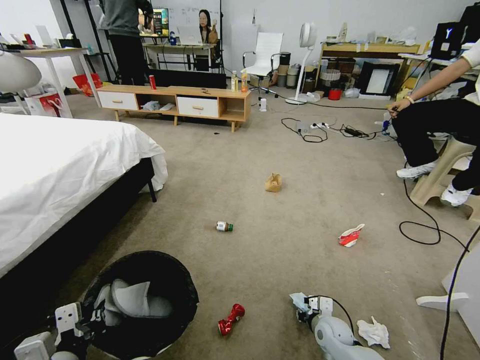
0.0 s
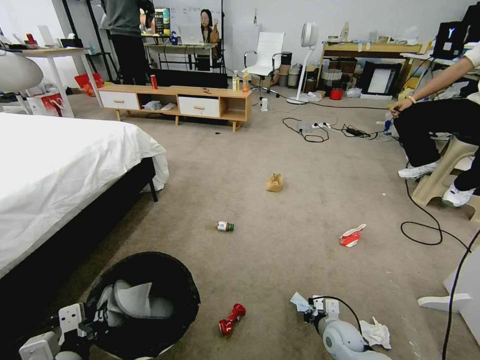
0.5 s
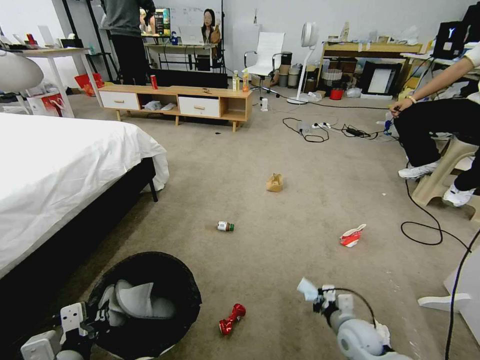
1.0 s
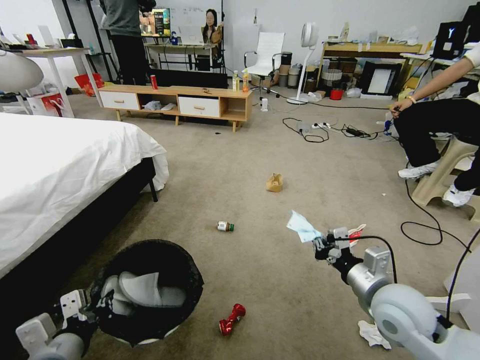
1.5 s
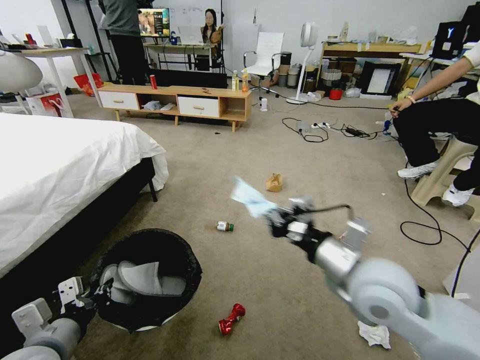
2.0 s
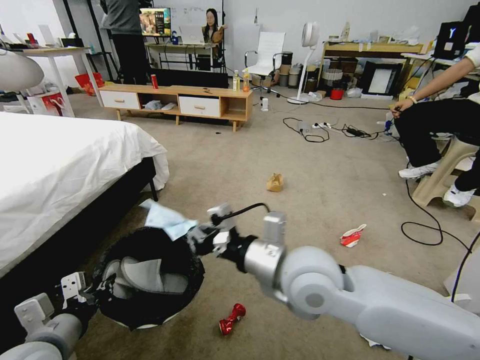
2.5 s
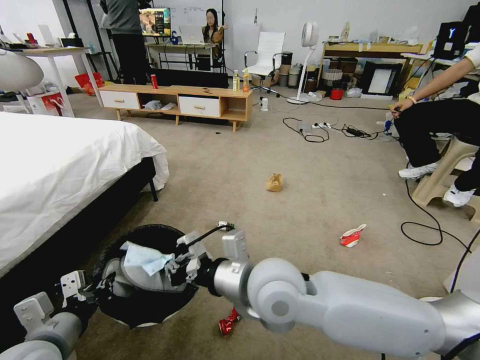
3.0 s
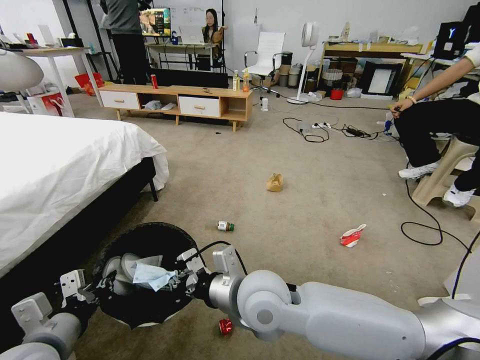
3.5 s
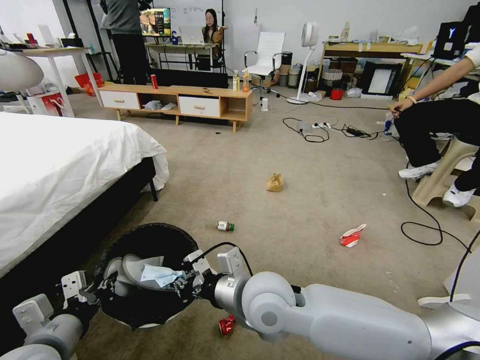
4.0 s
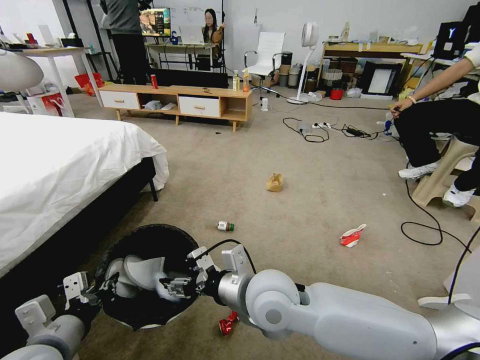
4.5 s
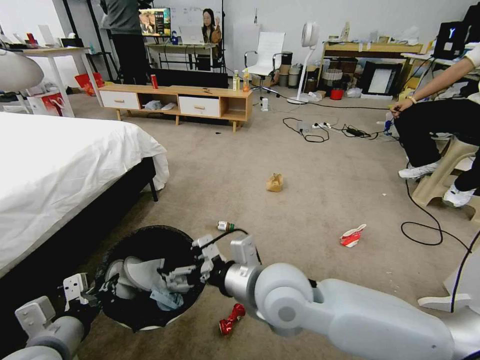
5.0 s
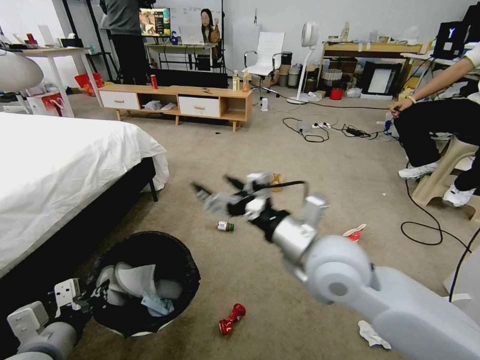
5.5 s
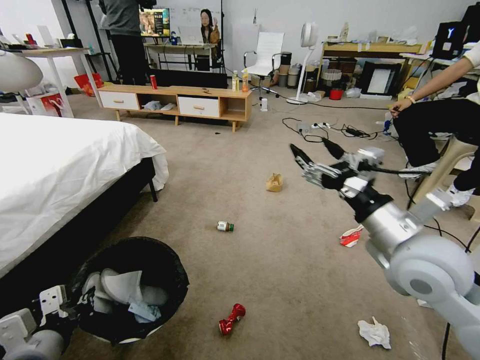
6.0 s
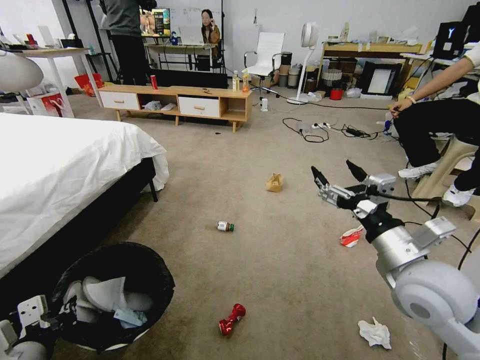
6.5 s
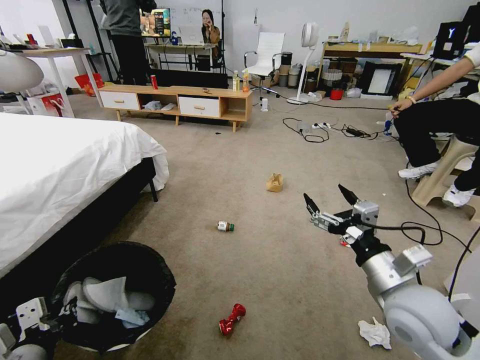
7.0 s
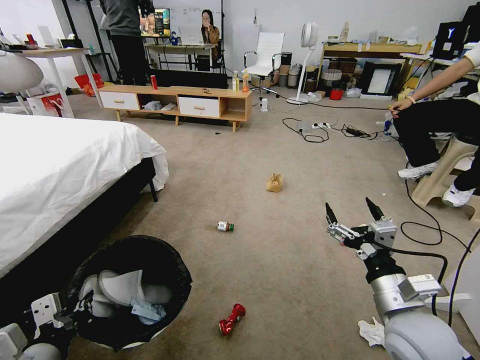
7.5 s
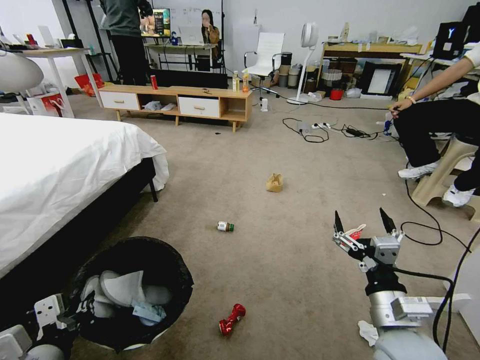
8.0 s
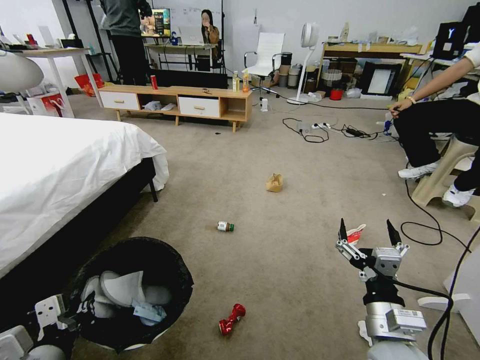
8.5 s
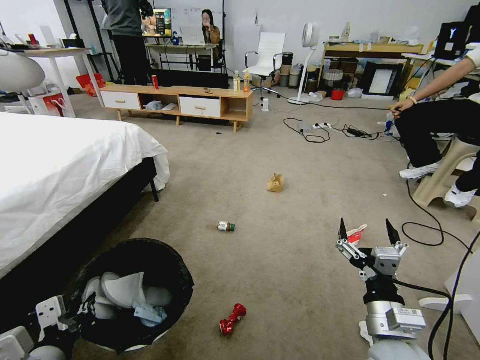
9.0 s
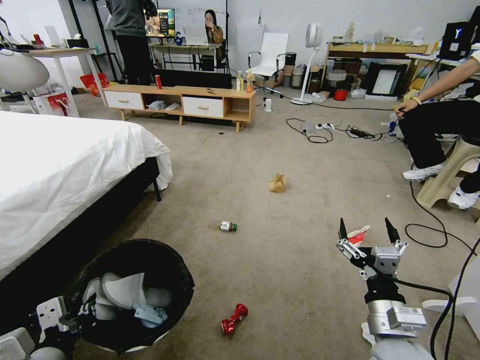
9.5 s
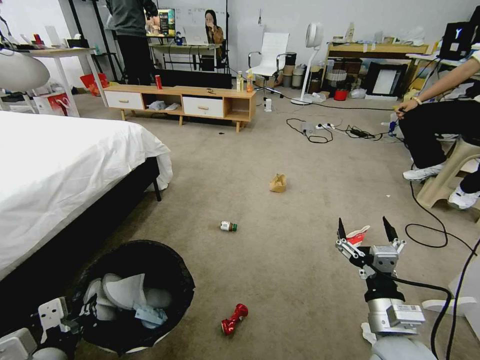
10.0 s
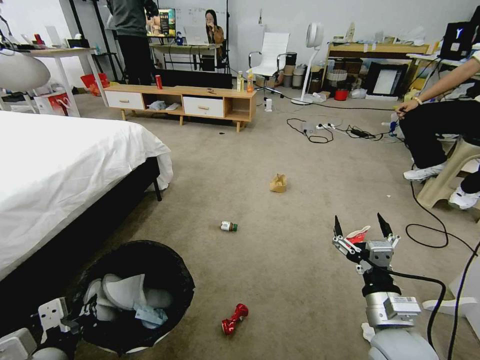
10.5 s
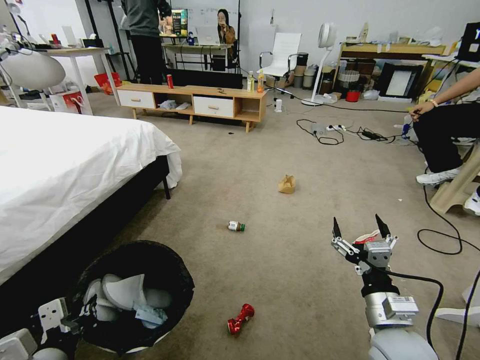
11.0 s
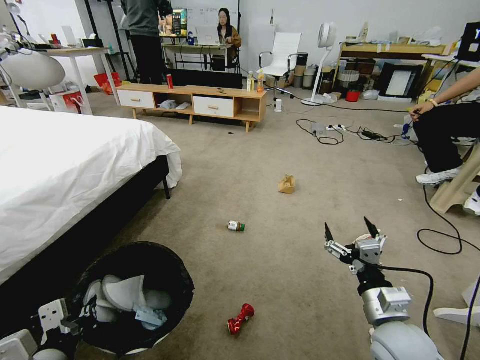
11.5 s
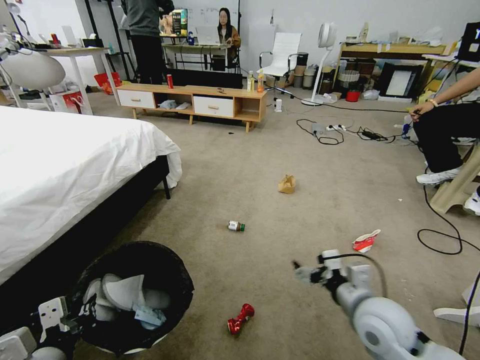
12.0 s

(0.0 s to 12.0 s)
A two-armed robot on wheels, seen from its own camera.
Task of the whole recording: Pick up the trash bin and place the garbage on the floor into it.
0.0 s - 2.0 s: The left gripper changes place by about 5 cm; the right gripper moves upward, about 35 cm, and closes.
2.0 s - 4.0 s: The right gripper moves to the left, about 15 cm.
4.0 s - 6.0 s: The right gripper travels to the right by roughly 25 cm, and opens.
6.0 s - 8.0 s: The right gripper moves downward and backward, roughly 15 cm.
10.0 s - 12.0 s: The right gripper moves forward, some 5 cm.

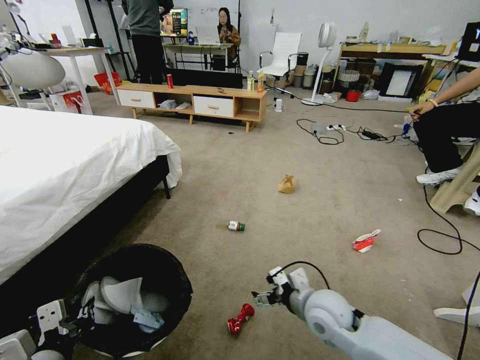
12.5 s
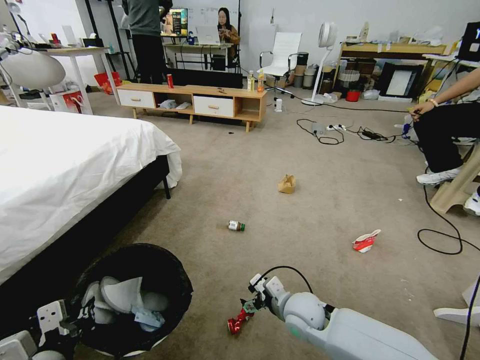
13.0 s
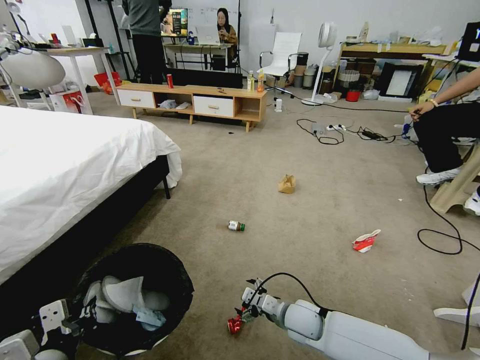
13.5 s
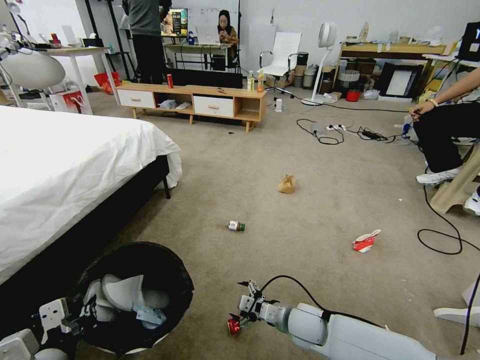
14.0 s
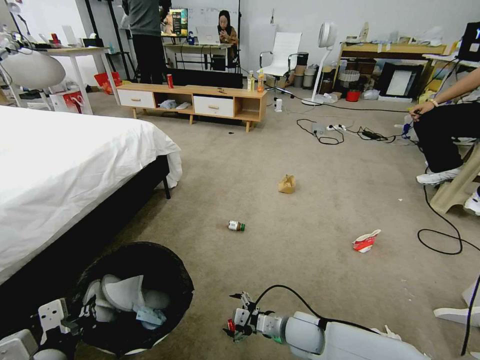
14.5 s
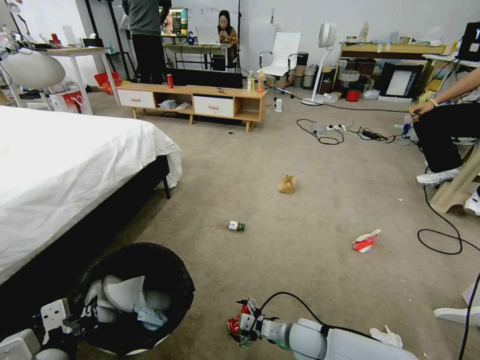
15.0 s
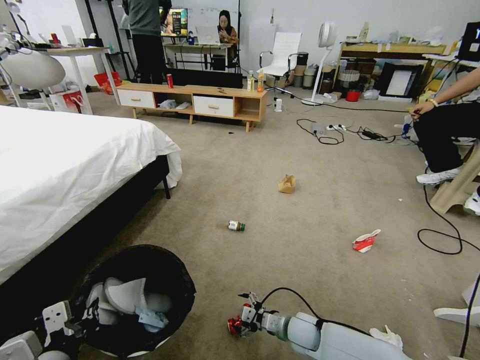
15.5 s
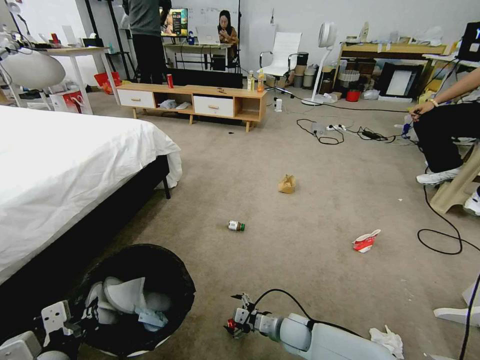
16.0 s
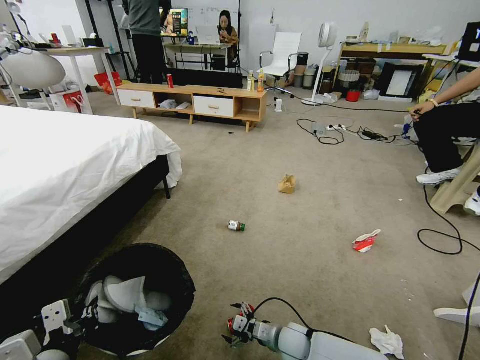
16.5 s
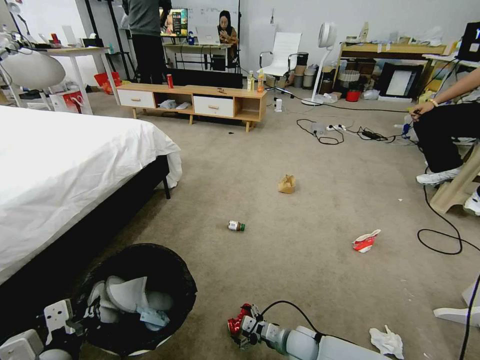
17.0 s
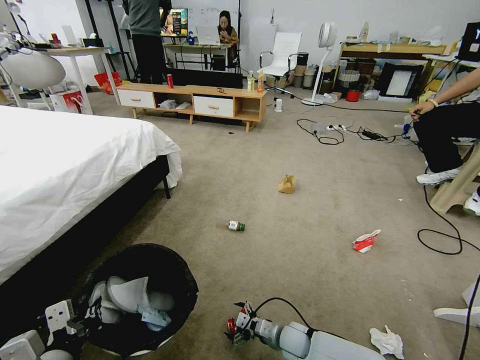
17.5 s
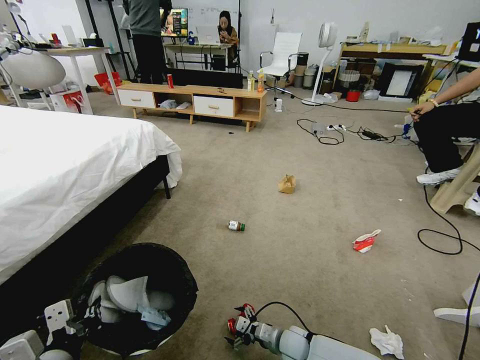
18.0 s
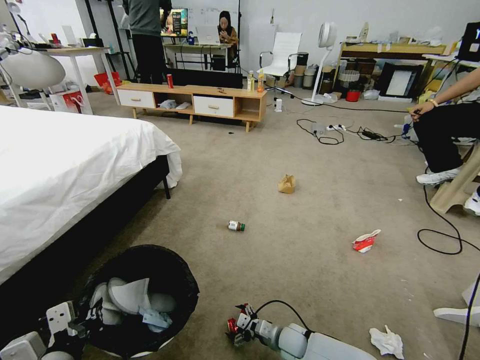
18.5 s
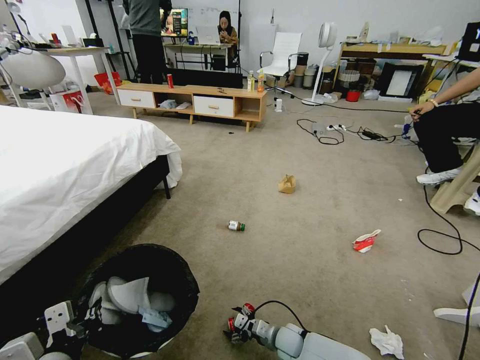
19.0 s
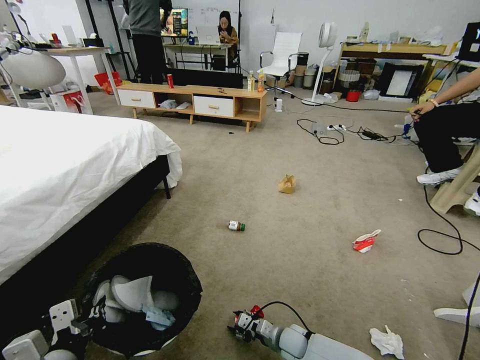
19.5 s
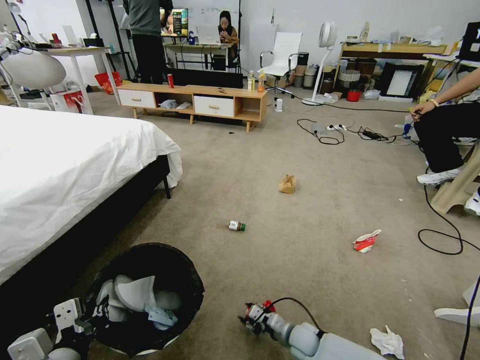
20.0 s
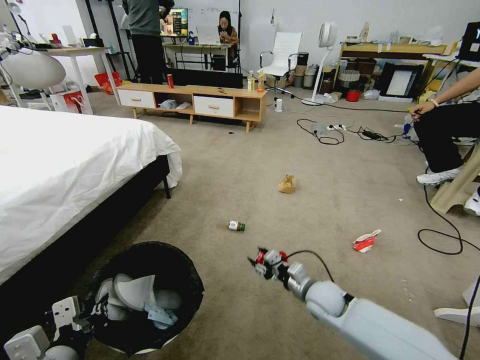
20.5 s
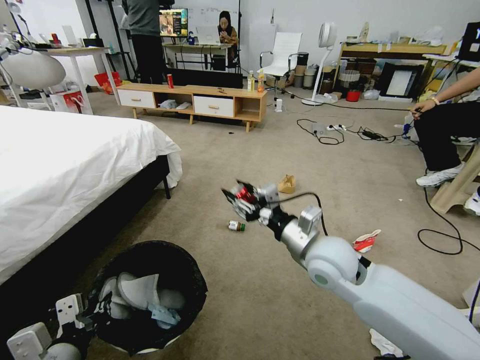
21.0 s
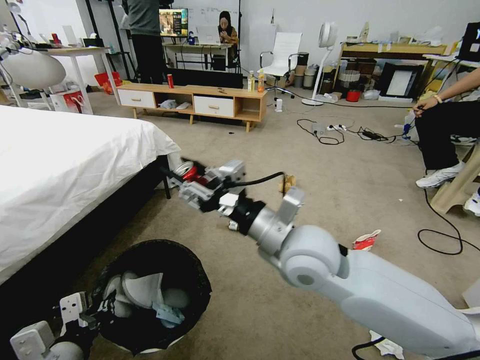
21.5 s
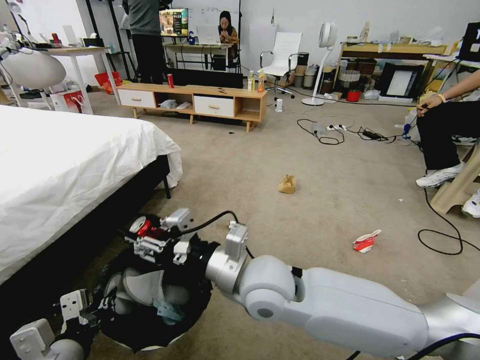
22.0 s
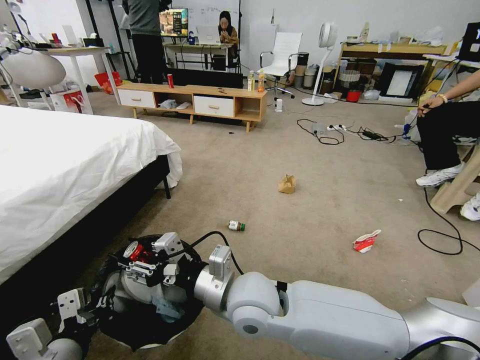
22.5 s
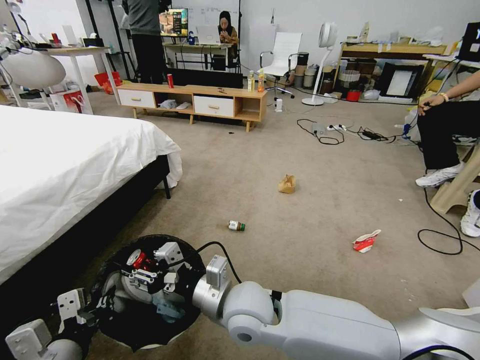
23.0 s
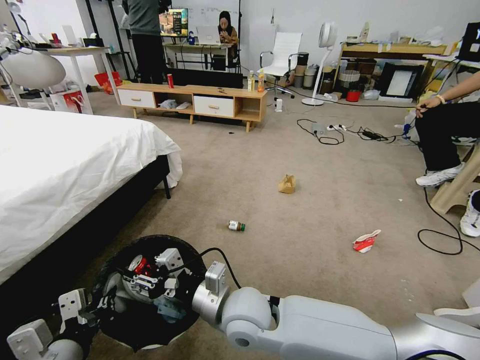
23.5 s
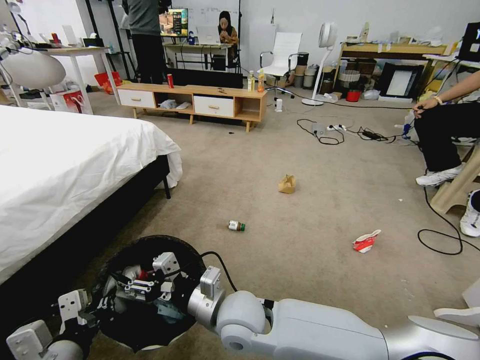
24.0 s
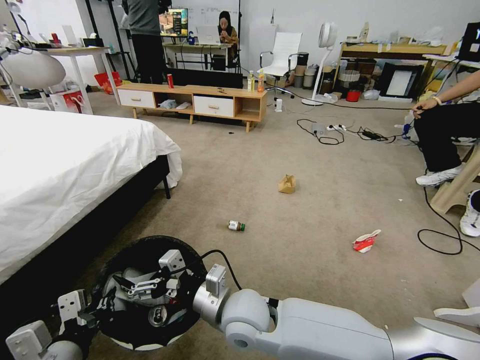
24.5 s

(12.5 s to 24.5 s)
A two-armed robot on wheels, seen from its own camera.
Task of the whole recording: Pick up the trash bin and place the garbage on the floor into it.
12.5 s - 14.5 s: The right gripper goes roughly 10 cm downward.
14.5 s - 16.5 s: The right gripper travels downward by approximately 10 cm.
16.5 s - 18.5 s: The grippers stay close to where they were, moving slightly.
18.5 s - 20.5 s: The right gripper moves upward, roughly 15 cm, and closes up.
20.5 s - 22.5 s: The right gripper moves to the left, upward and backward, about 30 cm.
22.5 s - 24.5 s: The right gripper moves downward, roughly 5 cm, and opens its fingers.

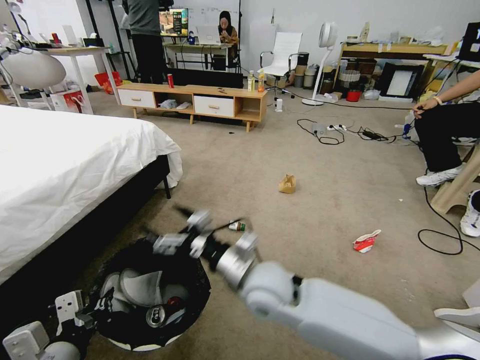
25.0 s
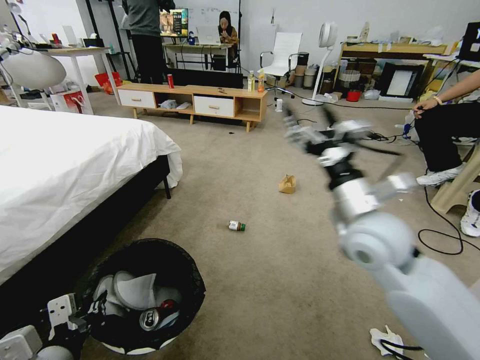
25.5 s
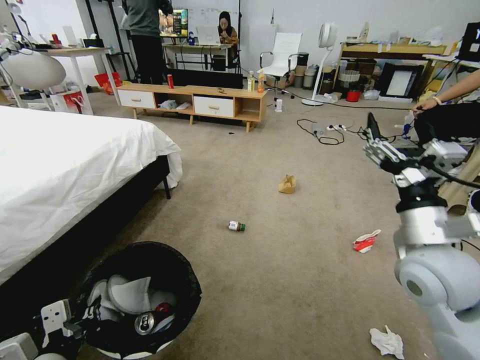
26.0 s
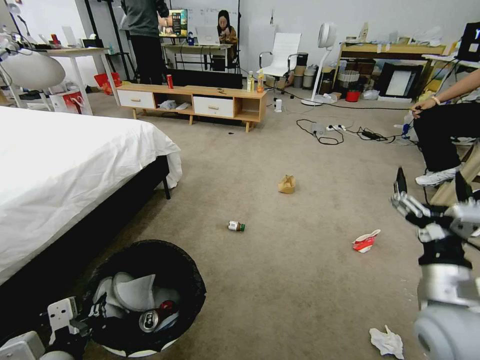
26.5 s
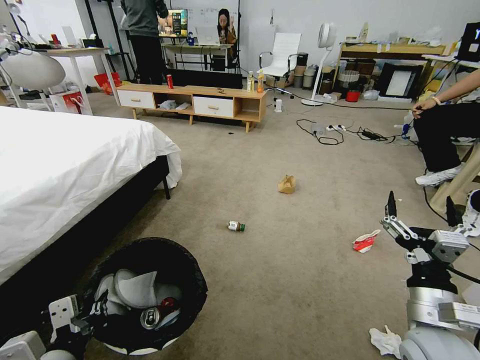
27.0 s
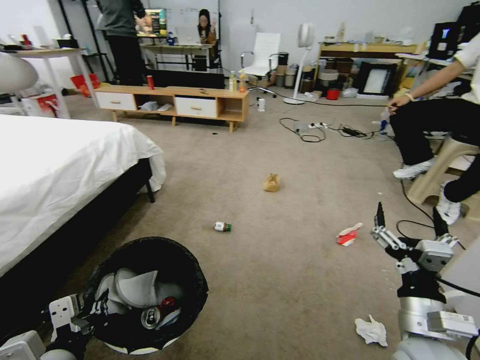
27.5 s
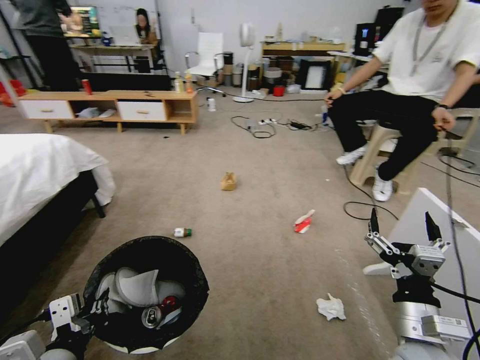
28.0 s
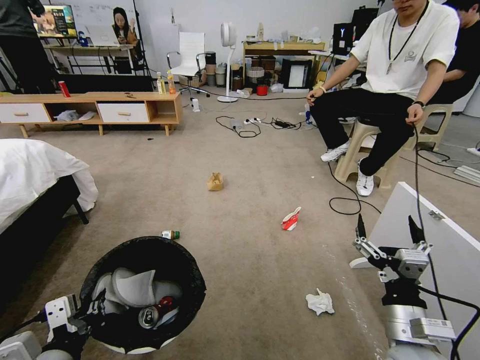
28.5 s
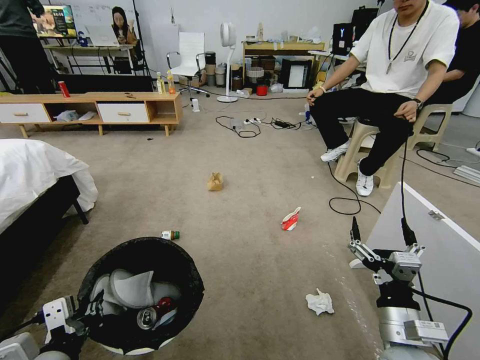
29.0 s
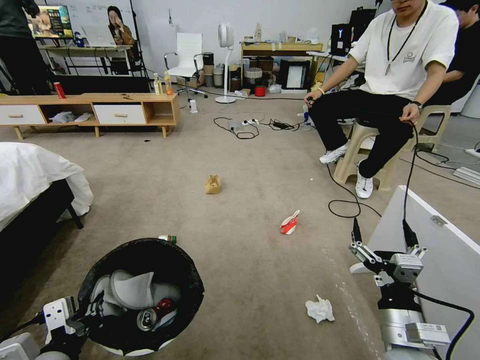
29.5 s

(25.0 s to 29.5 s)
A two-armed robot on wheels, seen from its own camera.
Task of the whole recording: Pick up the trash bin and place the garbage on the floor into it.
25.0 s - 27.0 s: The right gripper shifts about 25 cm to the right.
27.0 s - 29.5 s: The right gripper changes place by approximately 5 cm.
